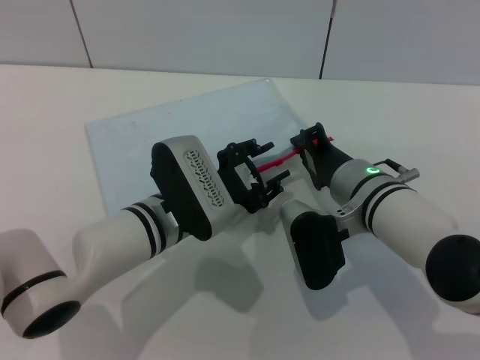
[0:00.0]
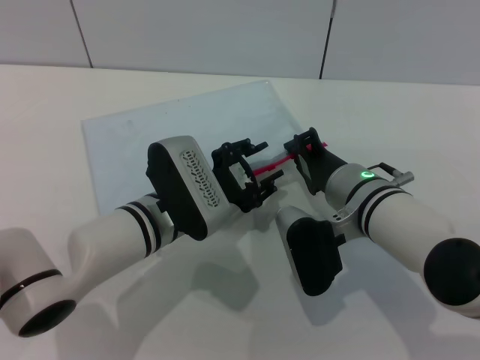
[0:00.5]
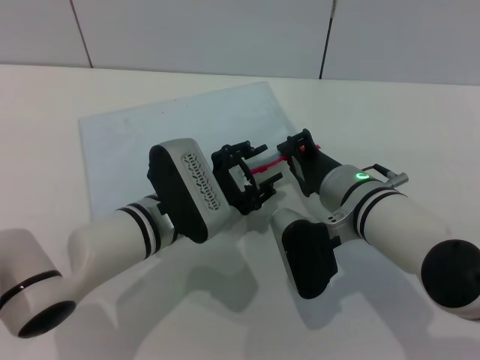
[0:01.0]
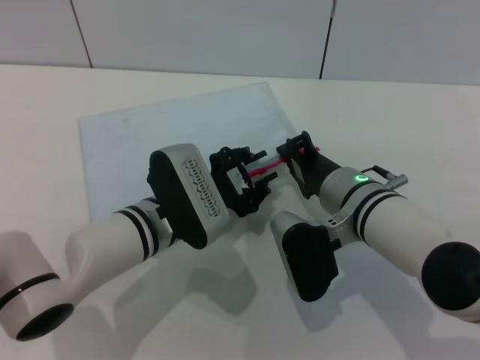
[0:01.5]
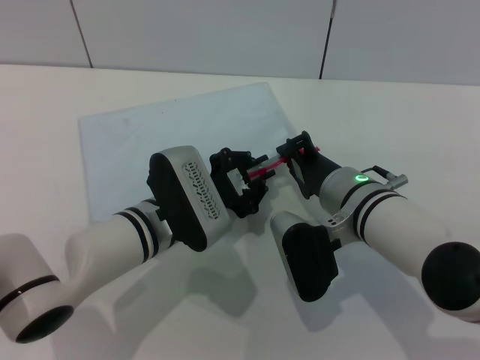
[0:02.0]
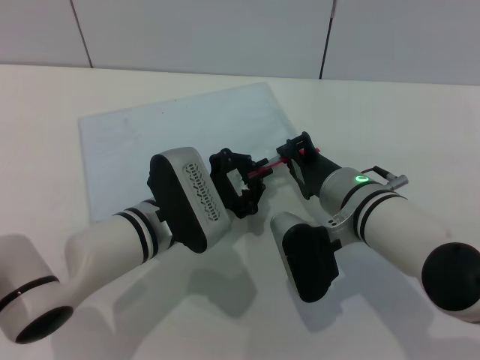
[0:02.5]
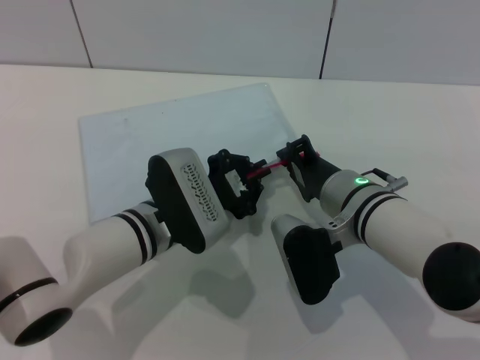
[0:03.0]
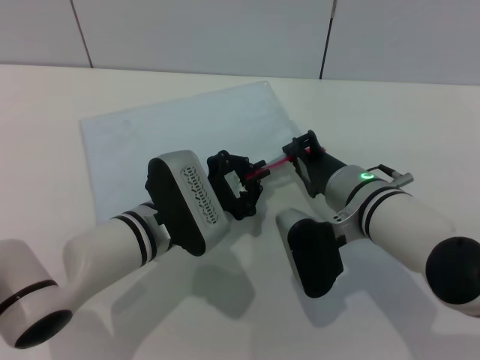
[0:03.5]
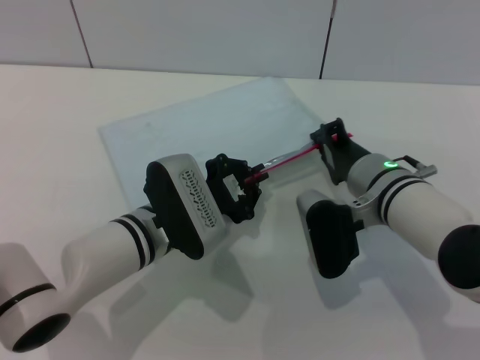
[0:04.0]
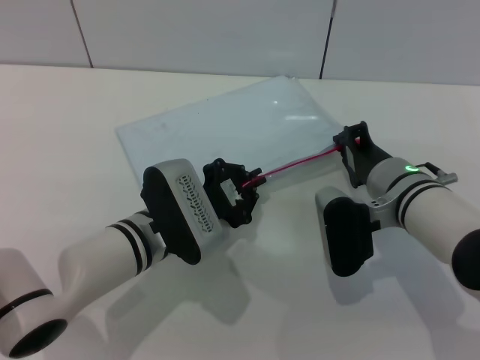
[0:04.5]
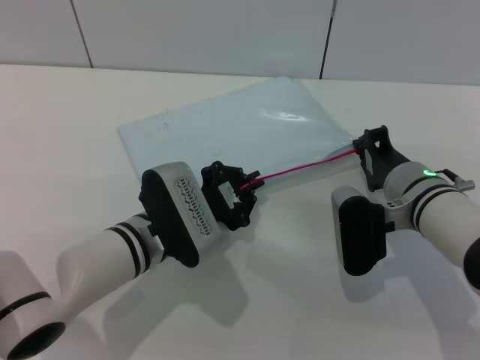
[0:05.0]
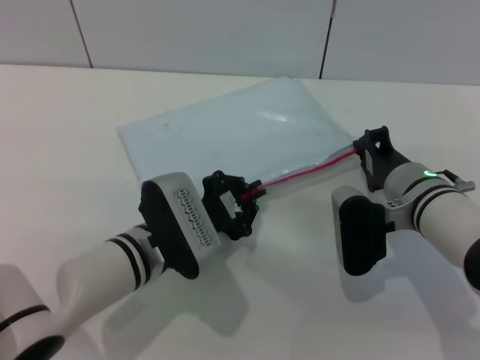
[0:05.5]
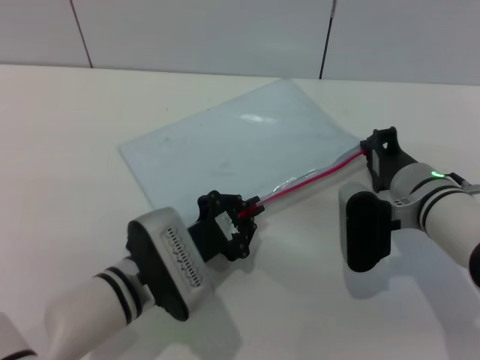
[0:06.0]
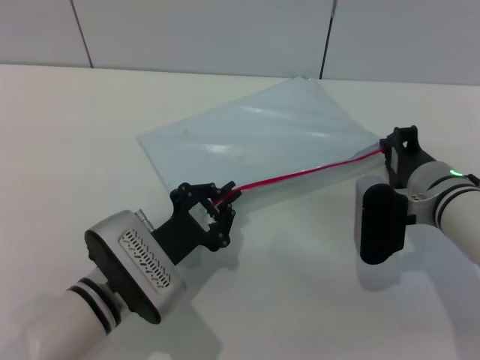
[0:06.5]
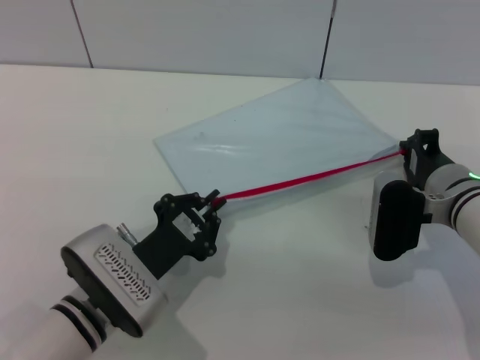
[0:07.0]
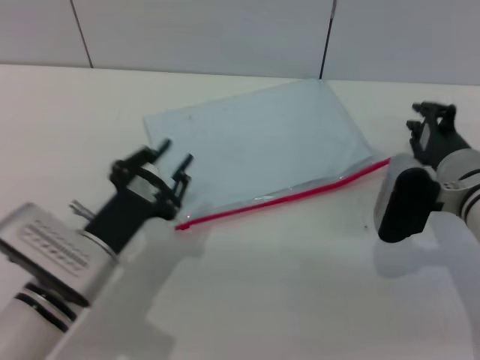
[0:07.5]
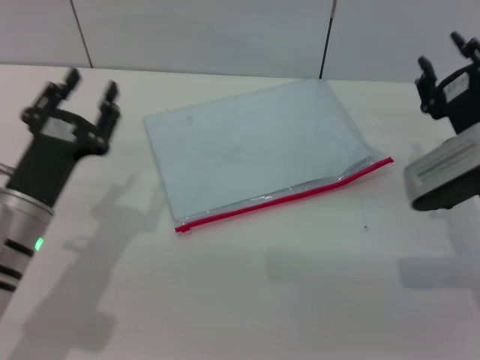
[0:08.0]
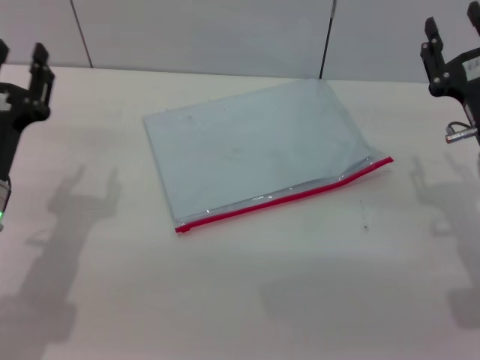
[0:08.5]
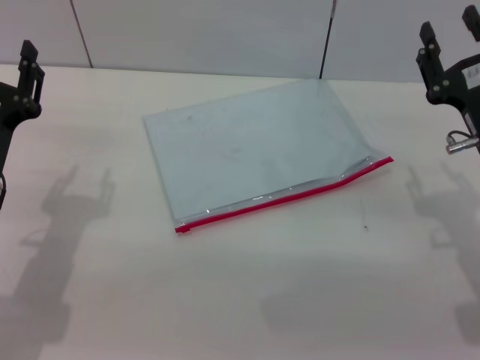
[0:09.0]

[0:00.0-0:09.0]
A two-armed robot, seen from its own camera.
Step, 0:00.0 to 0:07.5: Pulling up the zipper on the transparent plastic bag with the left gripper to close it.
0:00.0 to 0:02.0: The left gripper closes.
0:02.0 to 0:04.5: The right gripper ends up roughly 5 cm from where it was.
0:04.5 to 0:07.0: The left gripper travels backward by about 10 cm. The right gripper is displaced to the right by about 5 cm.
0:07.0 to 0:09.0: The left gripper travels to the left and upward by about 15 cm, and opens up. Meanwhile the right gripper shifts roughly 5 cm upward, and opens up.

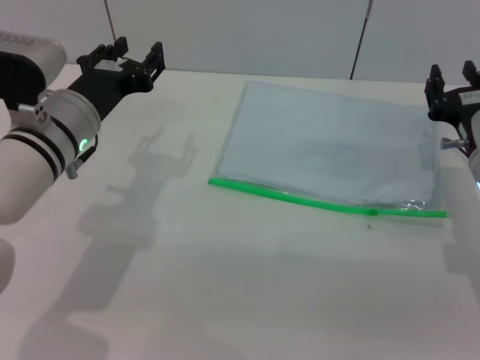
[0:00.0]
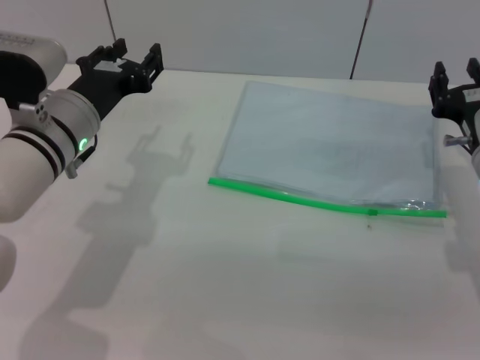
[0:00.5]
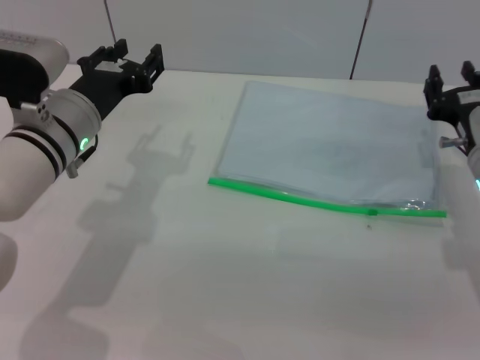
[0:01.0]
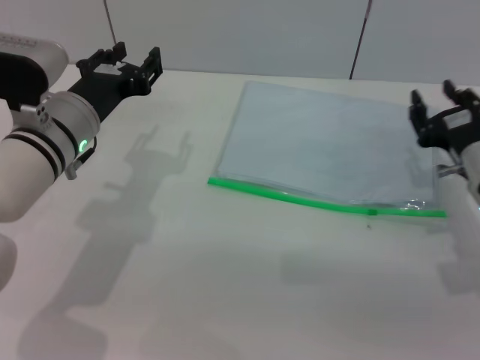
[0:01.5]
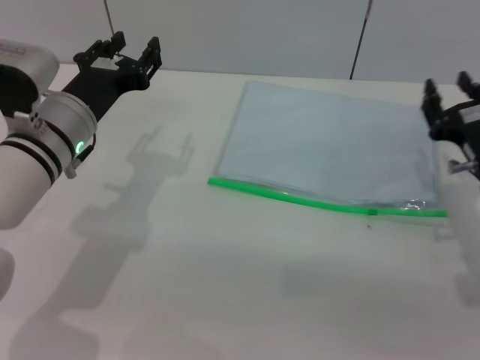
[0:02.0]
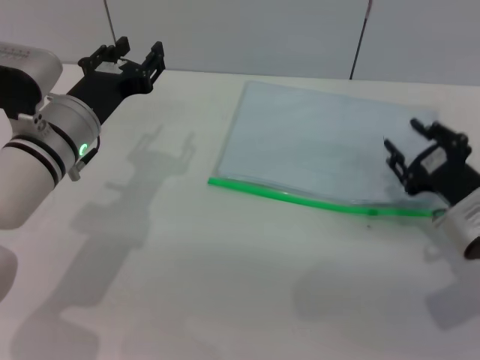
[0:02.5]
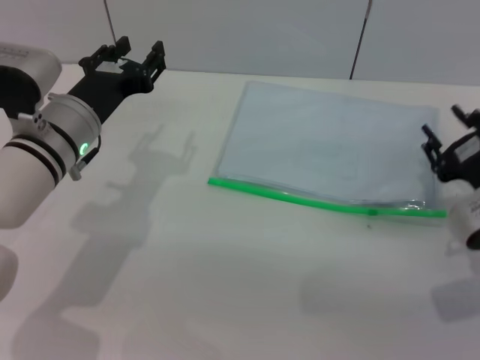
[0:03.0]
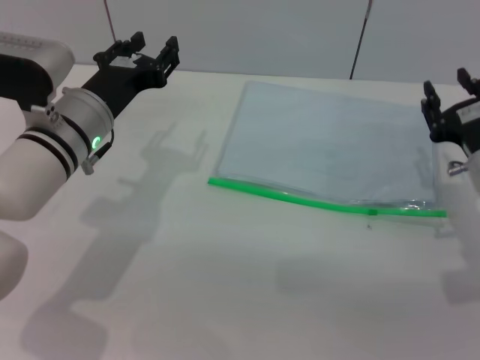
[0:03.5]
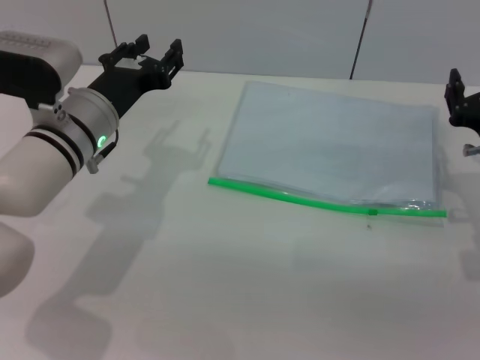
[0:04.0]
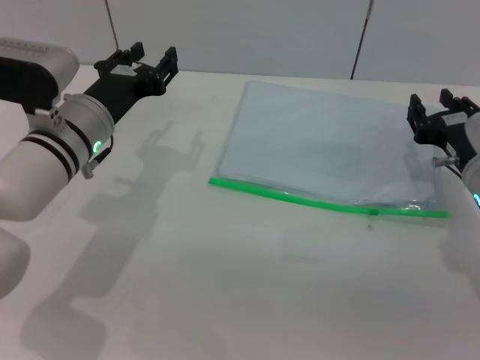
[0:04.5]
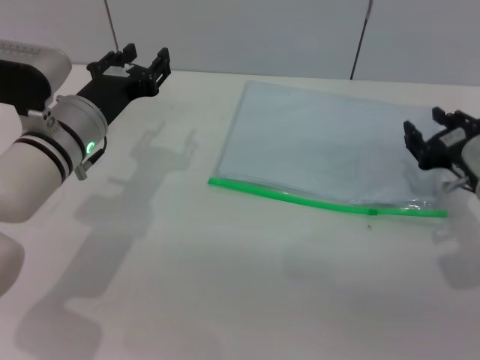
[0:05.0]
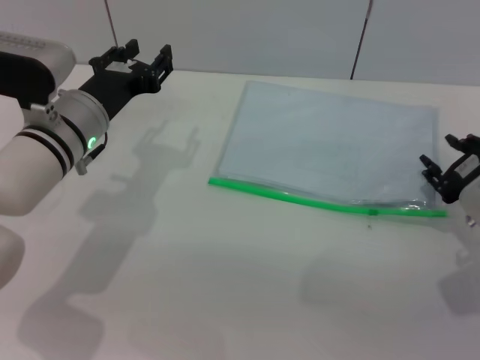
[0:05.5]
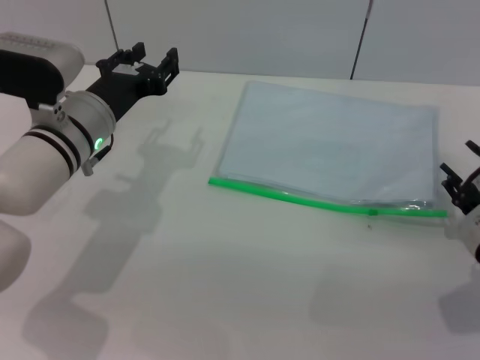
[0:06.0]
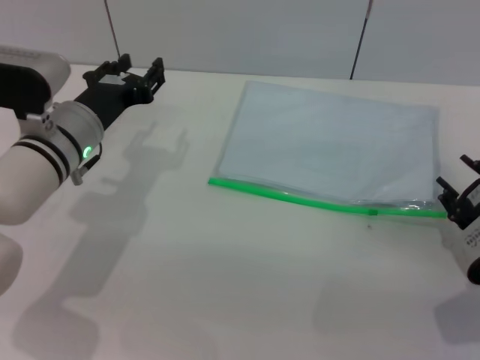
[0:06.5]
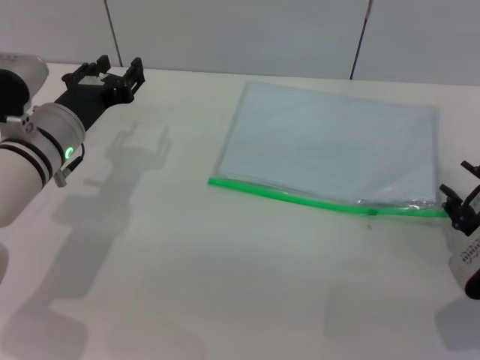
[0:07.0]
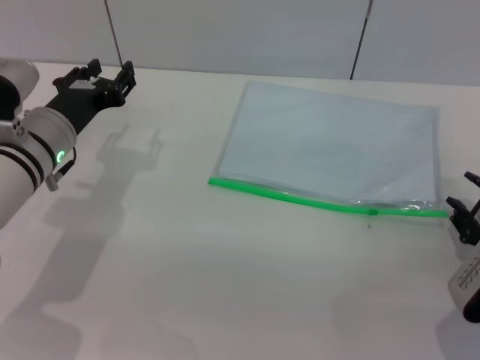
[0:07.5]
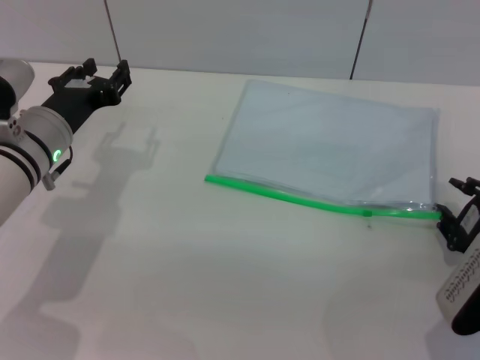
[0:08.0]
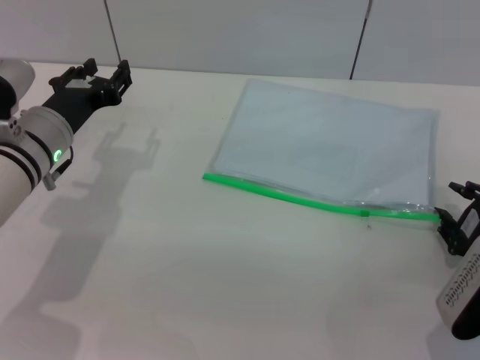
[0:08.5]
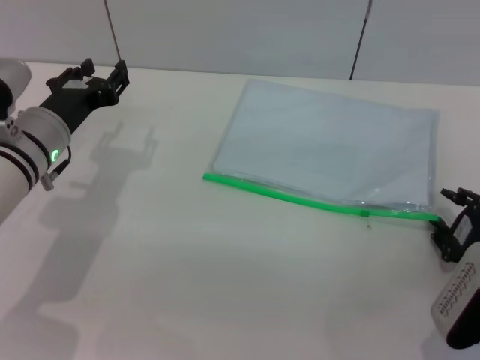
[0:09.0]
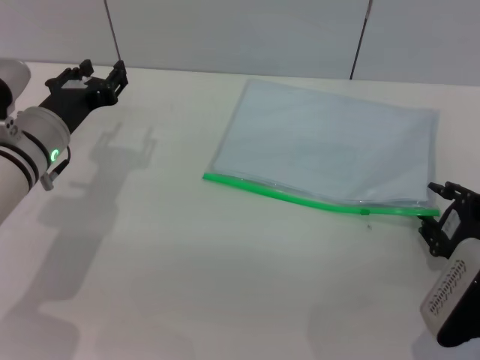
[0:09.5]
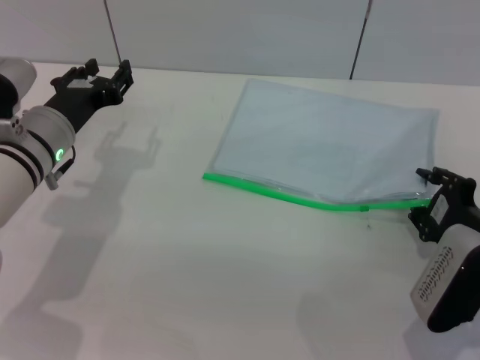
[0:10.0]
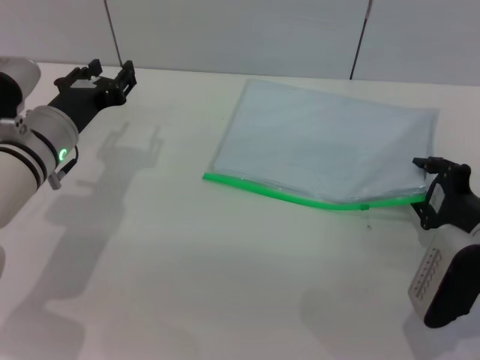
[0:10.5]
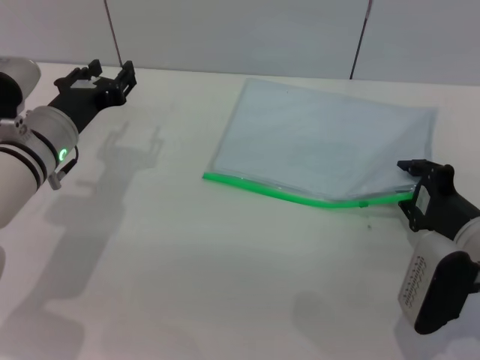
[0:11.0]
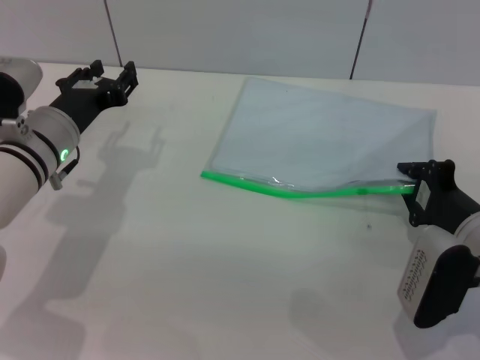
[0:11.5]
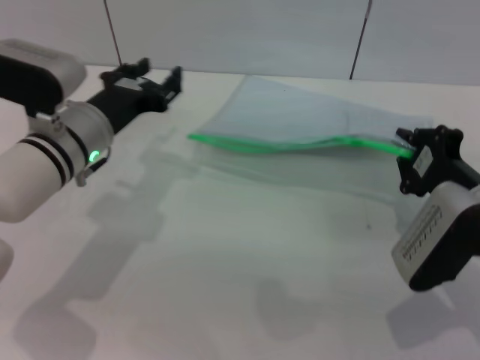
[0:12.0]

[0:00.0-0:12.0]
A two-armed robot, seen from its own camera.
0:00.0 to 0:02.0: There are only small adjustments of the grippers.
0:04.0 to 0:06.0: The right gripper goes approximately 5 cm backward.
0:06.0 to 0:08.0: There are only small adjustments of the grippers.
0:08.0 to 0:10.0: The grippers make only small movements.
0:10.0 to 0:12.0: The right gripper closes its fingers.

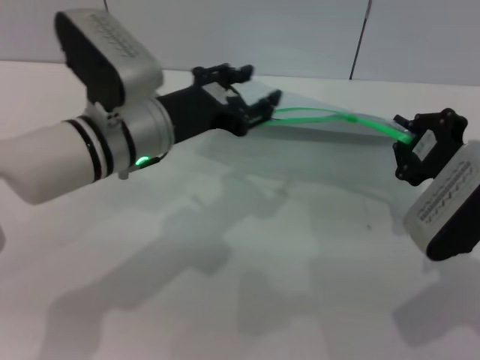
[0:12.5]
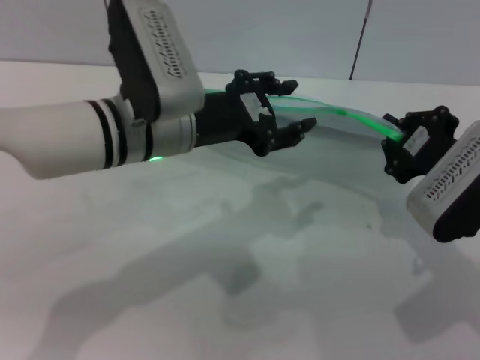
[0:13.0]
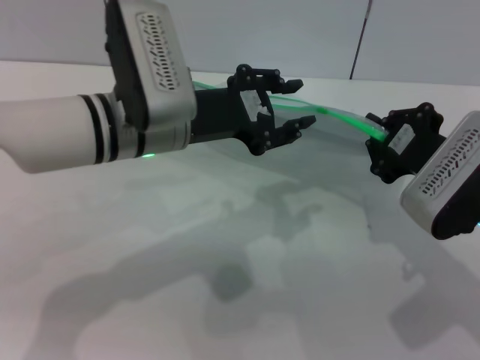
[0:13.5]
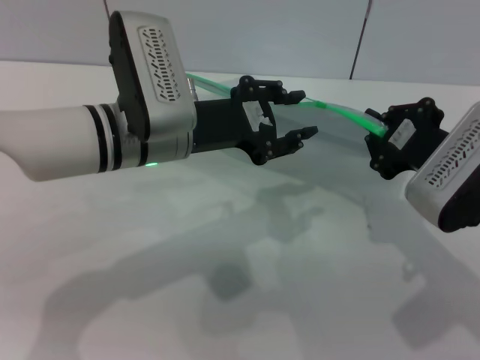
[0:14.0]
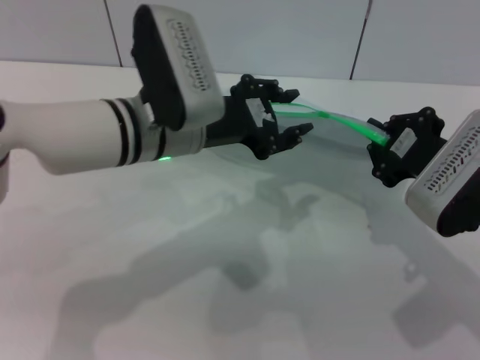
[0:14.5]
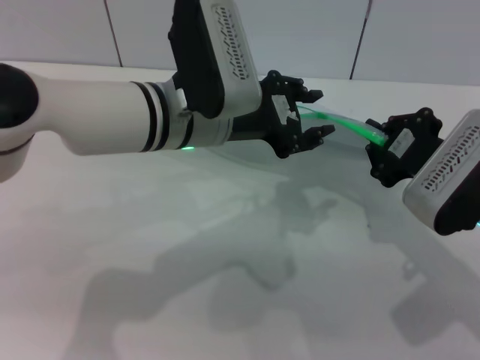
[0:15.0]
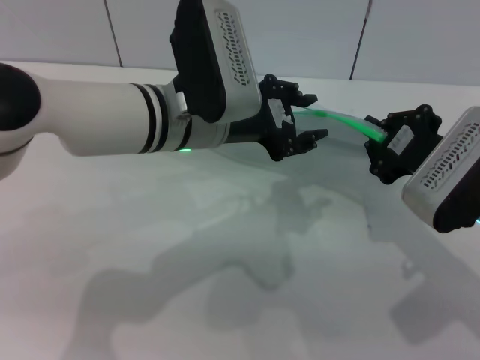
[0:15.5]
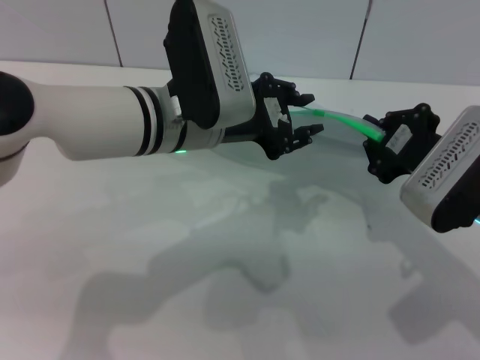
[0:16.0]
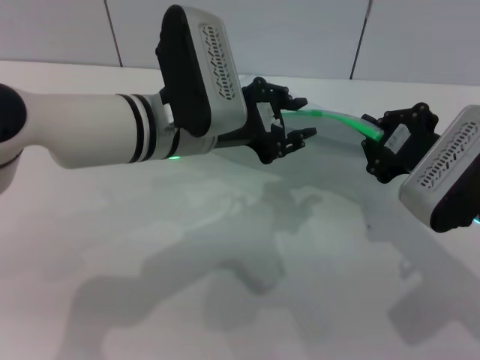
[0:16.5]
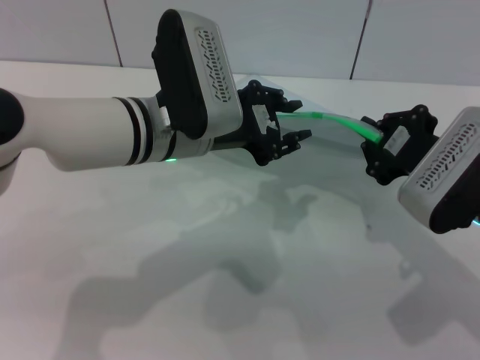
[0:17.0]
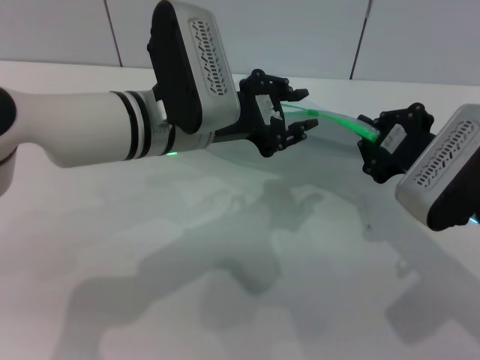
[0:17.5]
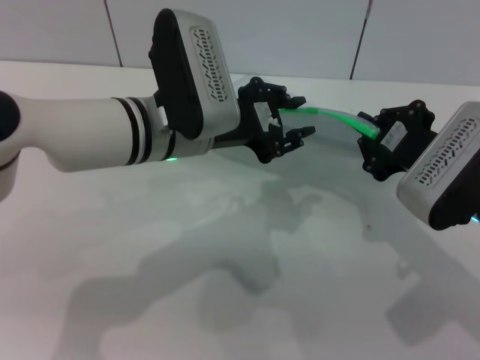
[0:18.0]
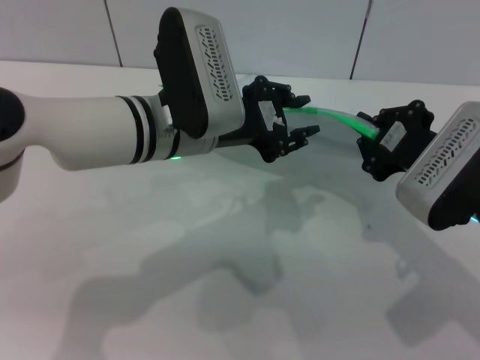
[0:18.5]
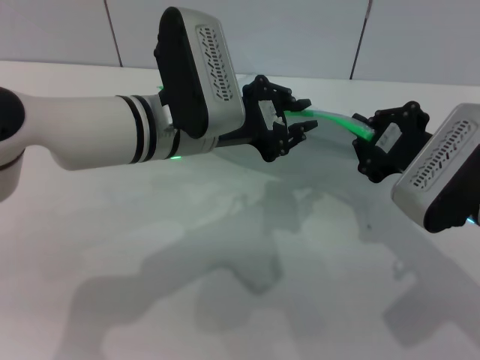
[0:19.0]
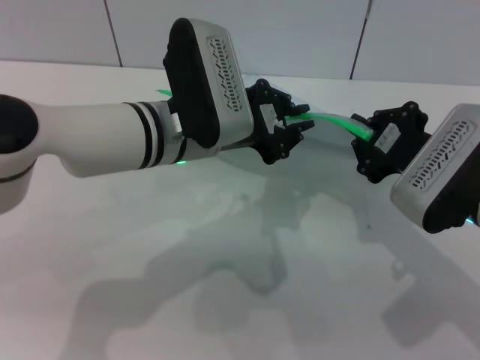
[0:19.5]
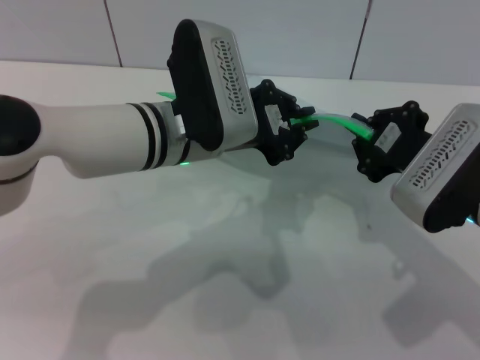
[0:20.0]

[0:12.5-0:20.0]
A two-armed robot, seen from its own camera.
0:14.5 to 0:16.5: The grippers make only small movements.
0:16.5 to 0:18.0: The two grippers keep their place.
0:18.0 to 0:20.0: The left gripper closes.
